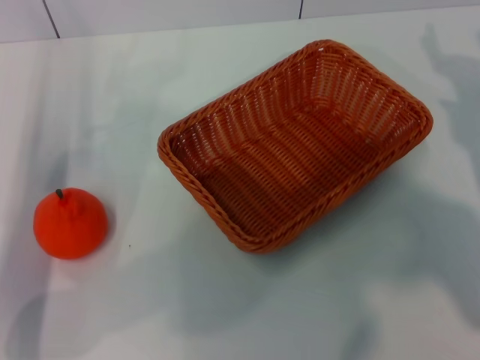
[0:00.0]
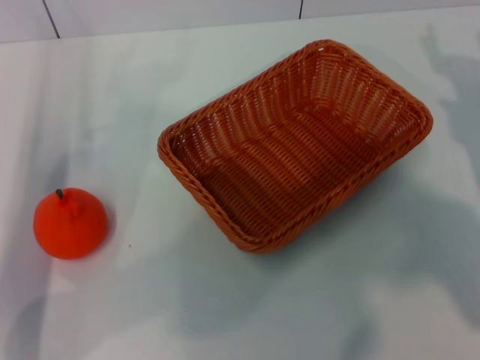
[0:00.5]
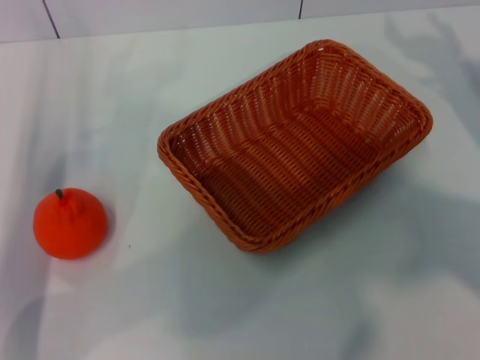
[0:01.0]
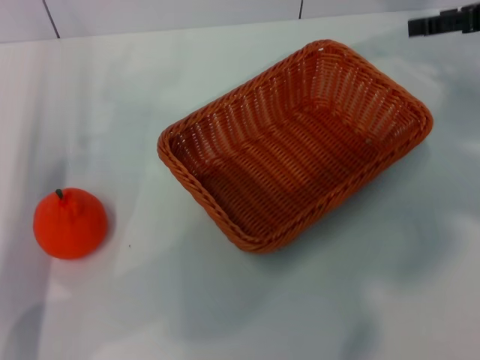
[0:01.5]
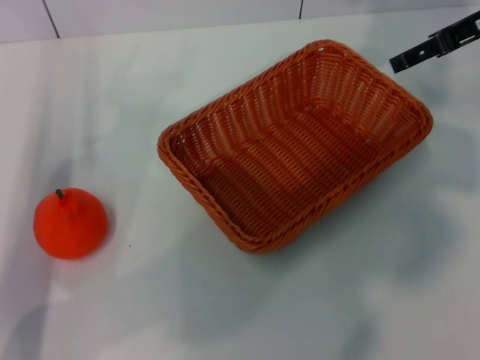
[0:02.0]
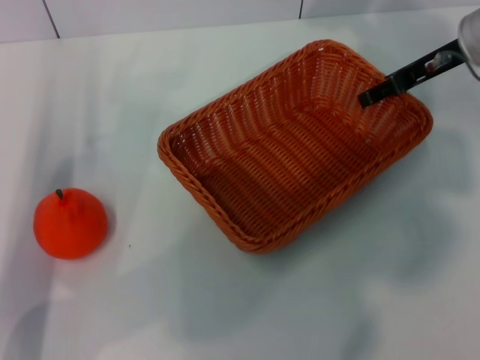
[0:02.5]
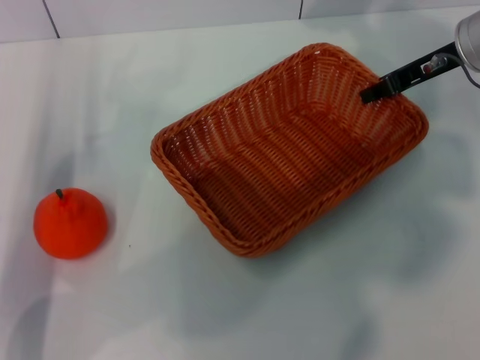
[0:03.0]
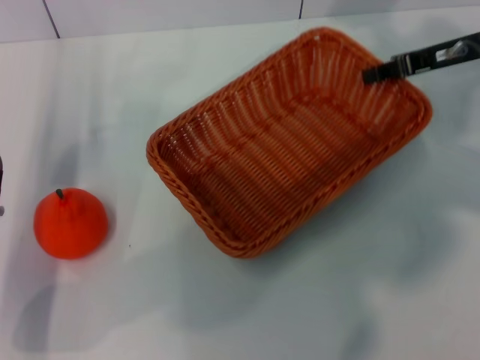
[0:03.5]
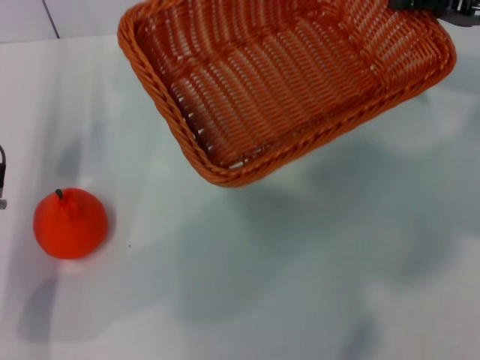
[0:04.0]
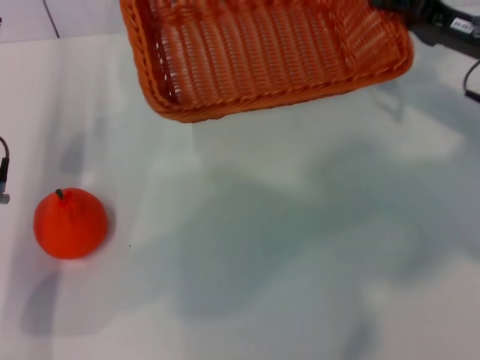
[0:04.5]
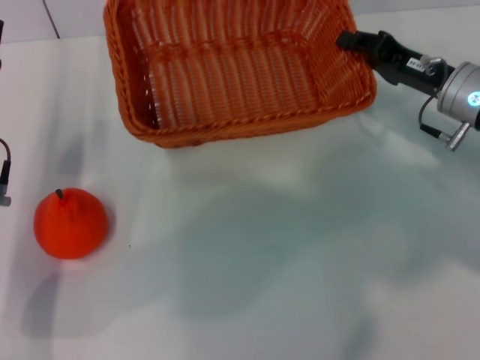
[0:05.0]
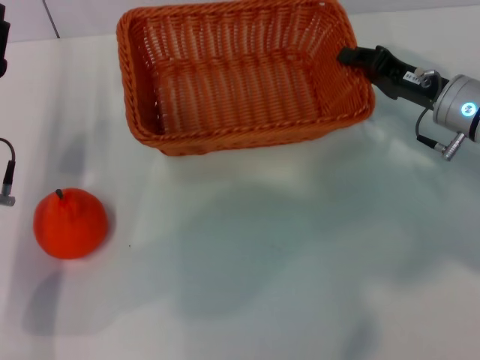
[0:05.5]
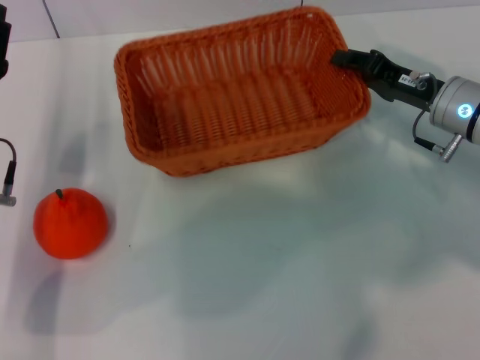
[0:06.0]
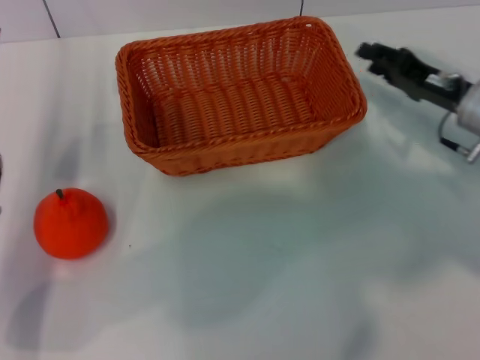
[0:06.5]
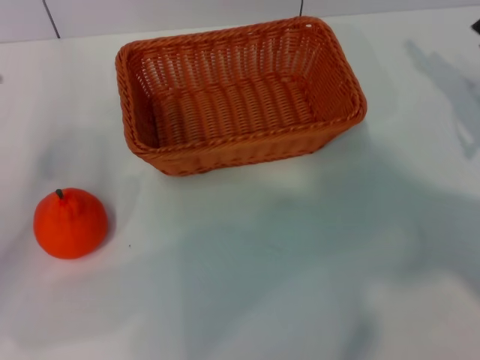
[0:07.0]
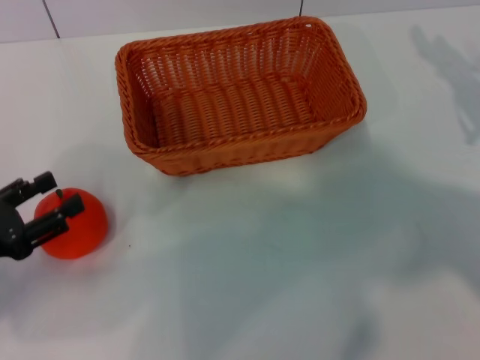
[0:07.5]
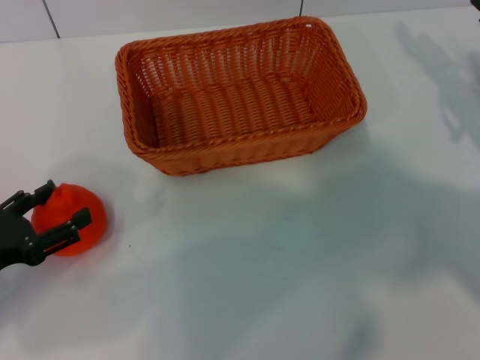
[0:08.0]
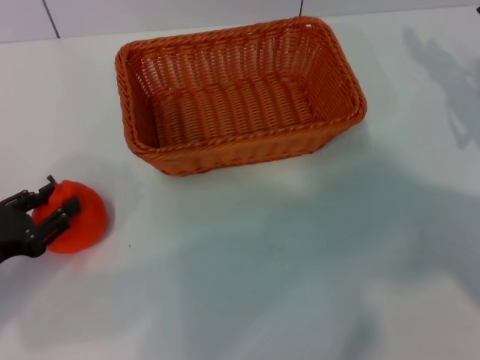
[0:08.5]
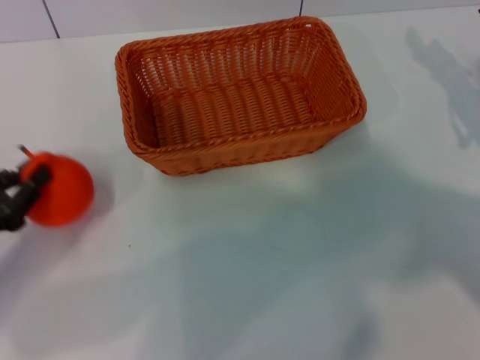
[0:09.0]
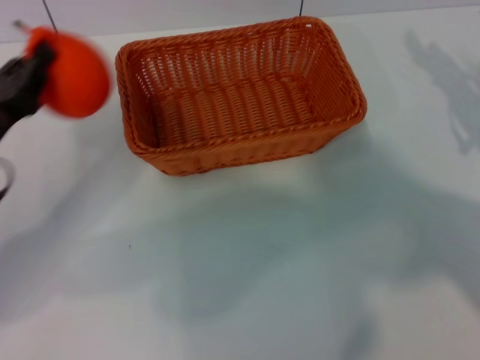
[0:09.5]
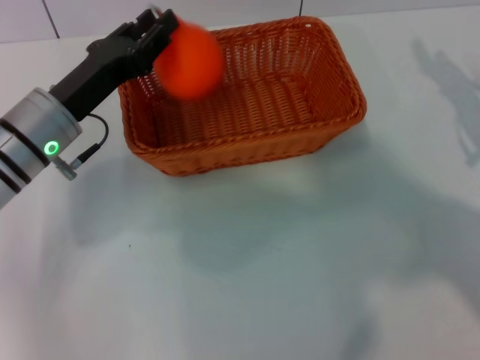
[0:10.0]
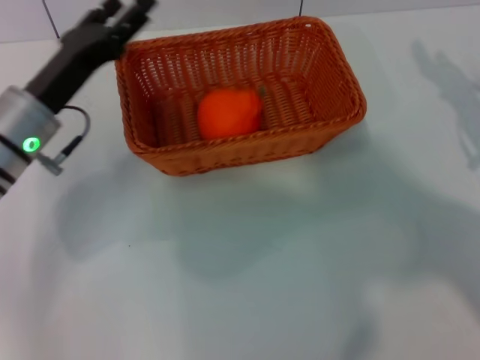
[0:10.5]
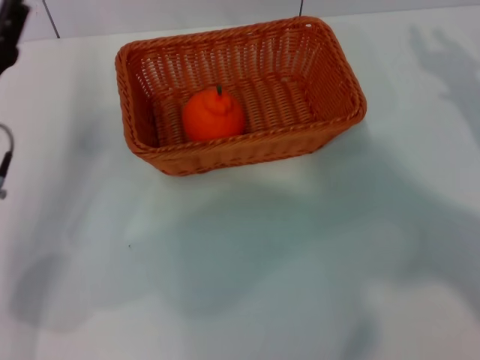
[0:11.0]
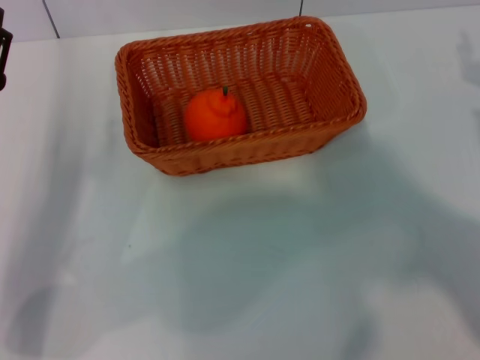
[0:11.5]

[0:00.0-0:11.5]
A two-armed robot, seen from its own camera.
Task of the whole recording: the right gripper pick up the yellow basket and place it horizontally in the middle of the table, the left gripper pick up the orange and place it into the yellow basket.
Step, 0:00.0 to 0:03.0: Pick up the light basket with the right gripper.
Step, 0:03.5 to 0:06.0: Place the light basket in the center of view with the right gripper.
Step, 0:06.5 to 0:08.5: Pick up the orange with the left gripper.
Step, 0:09.0 to 0:10.0: Place the orange into the light basket with the left gripper.
0:00.0 to 0:02.0: The right gripper goes about 20 cm upward and forward.
0:02.0 to 0:04.0: The right gripper shifts by approximately 5 cm, and closes up.
0:04.0 to 0:06.0: The right gripper travels downward and to the left by about 15 cm.
0:06.0 to 0:07.5: The left gripper shifts about 10 cm to the left and backward. Meanwhile the right gripper shifts some 10 cm to the right, and opens.
0:07.5 to 0:09.5: The left gripper heads forward, covering about 5 cm, and closes its fingers.
0:09.5 to 0:11.5: The left gripper moves about 10 cm to the right and comes back, and opens up. Meanwhile the right gripper is displaced backward by approximately 5 cm.

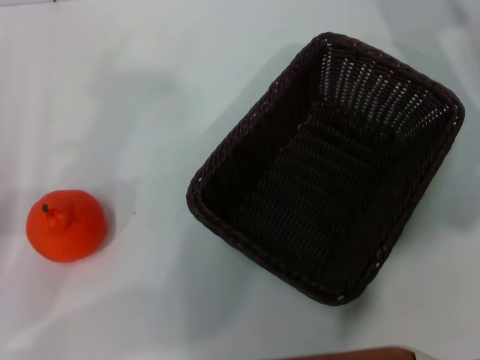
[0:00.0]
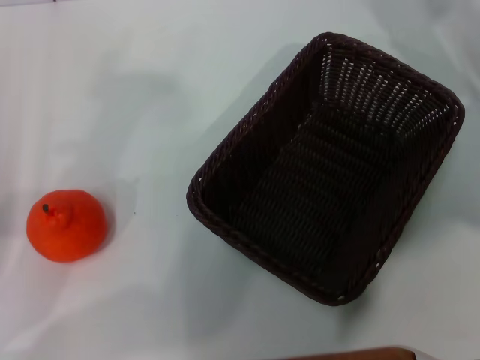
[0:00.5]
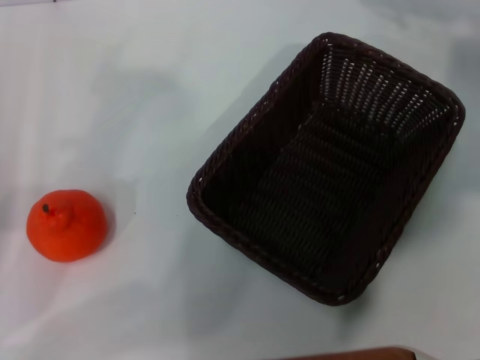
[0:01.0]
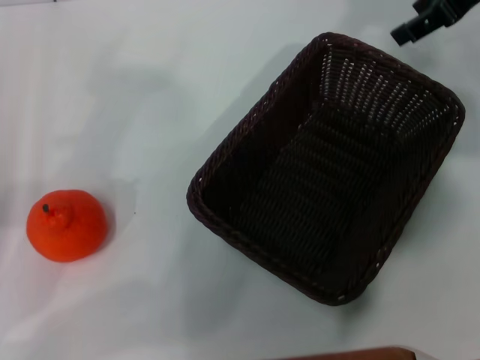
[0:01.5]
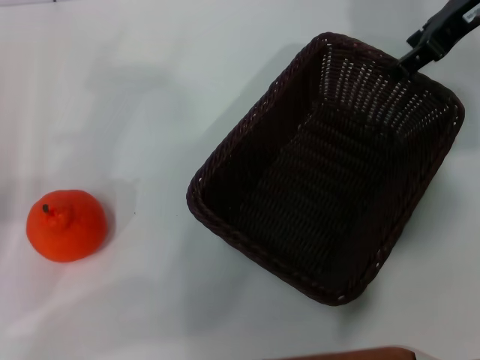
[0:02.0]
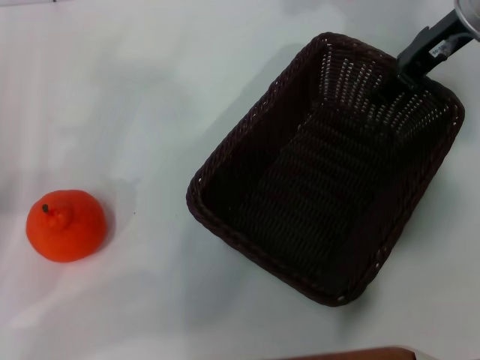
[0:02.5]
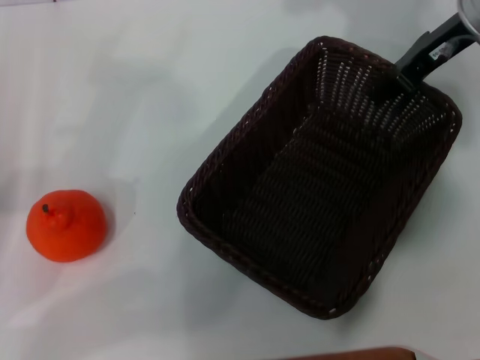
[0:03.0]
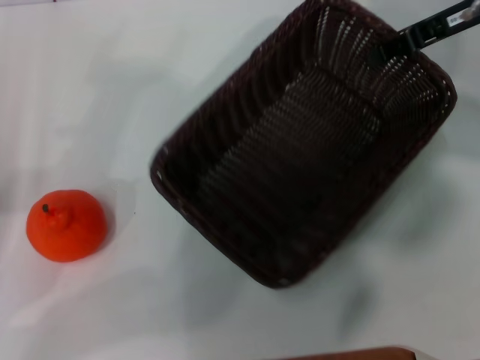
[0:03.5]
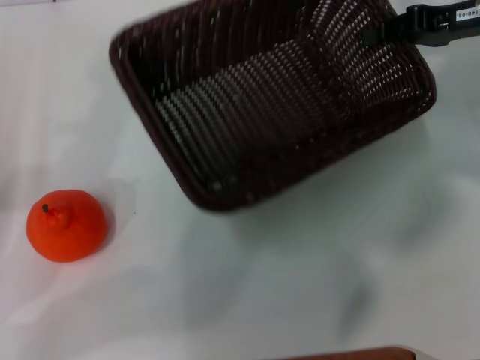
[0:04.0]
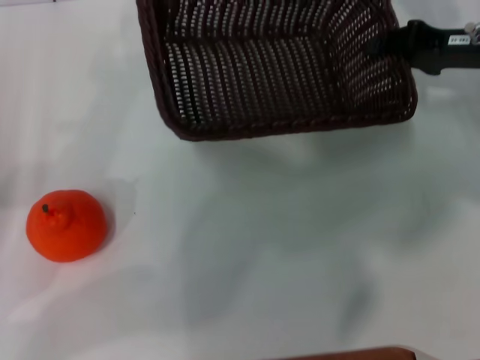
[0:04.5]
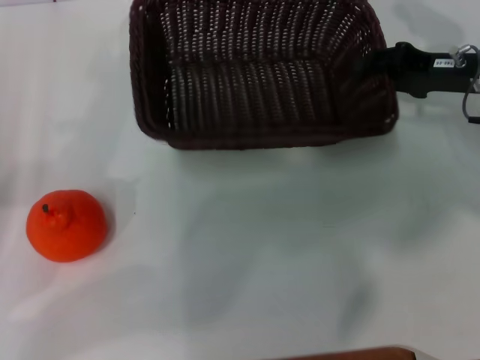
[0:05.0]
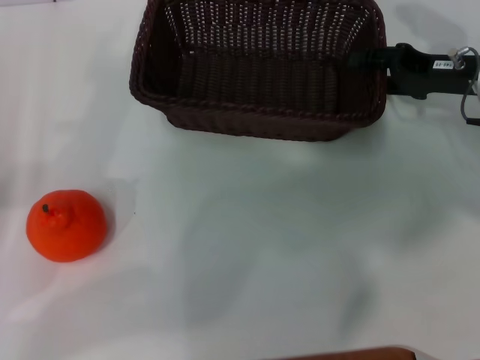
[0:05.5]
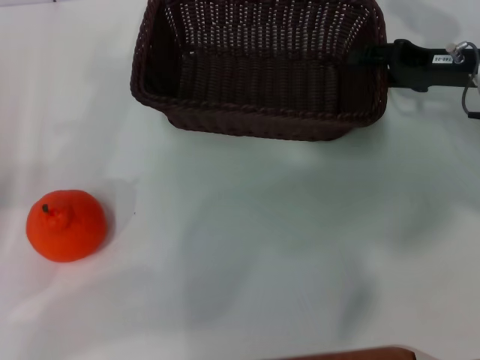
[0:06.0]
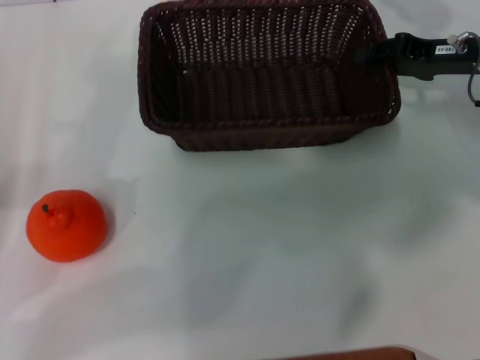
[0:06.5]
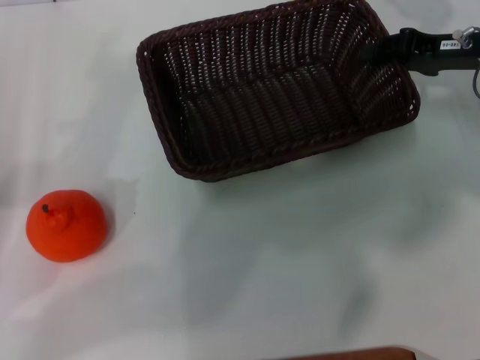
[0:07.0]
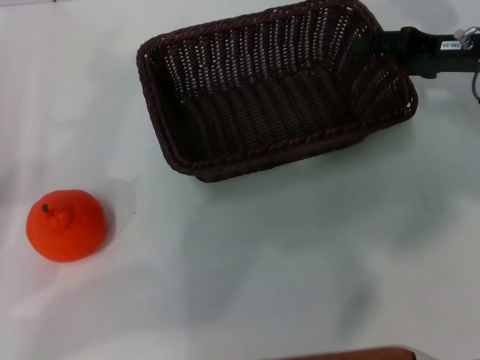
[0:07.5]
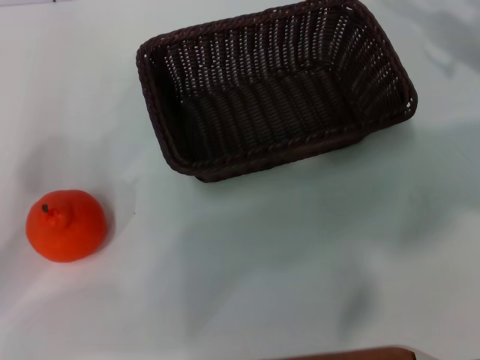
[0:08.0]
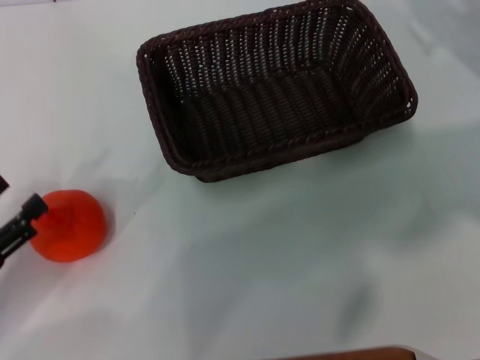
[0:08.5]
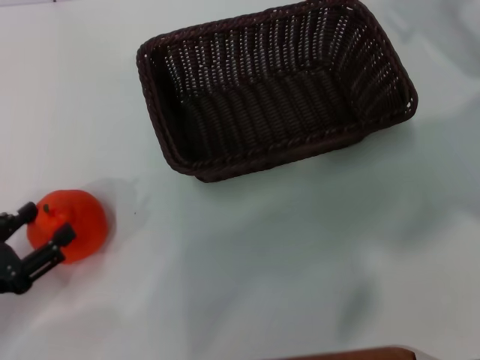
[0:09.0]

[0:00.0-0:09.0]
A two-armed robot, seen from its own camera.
Task of the whole recording: the right gripper pick up the black basket and place it horizontally in the middle of the table, the left gripper pick up the orange and place it into the black basket.
Step, 0:00.0 to 0:03.0: Pick up the dark basket with the right gripper.
Step, 0:03.5 to 0:07.5: Place the dark basket in the center of view with the right gripper.
0:00.0 to 0:02.0: The right gripper is displaced upward by some 10 cm.
0:02.0 to 0:04.5: The right gripper travels downward by about 10 cm, and closes its fingers.
0:04.5 to 0:07.0: The right gripper opens, then closes again.
0:07.0 to 0:09.0: The right gripper moves roughly 5 cm, and opens its fingers; the left gripper moves downward and backward, some 10 cm.

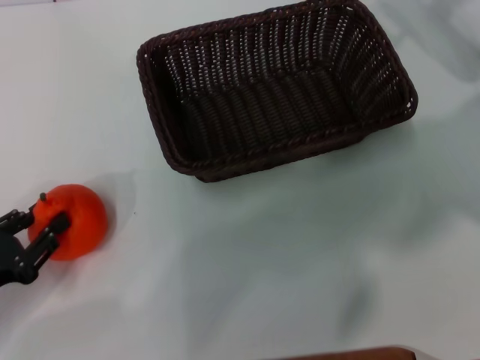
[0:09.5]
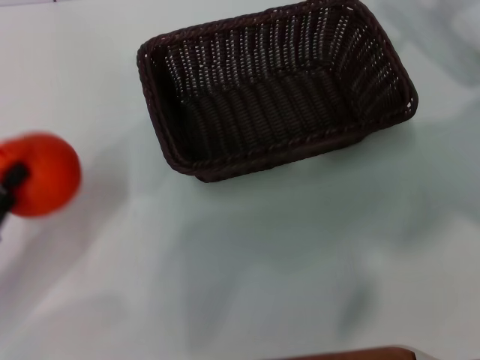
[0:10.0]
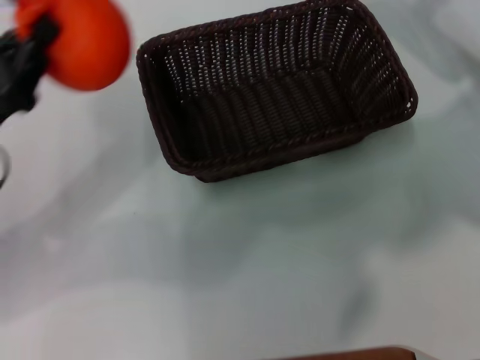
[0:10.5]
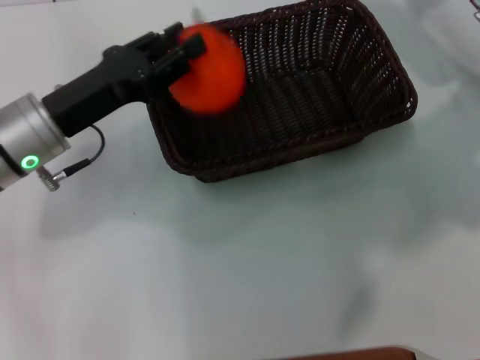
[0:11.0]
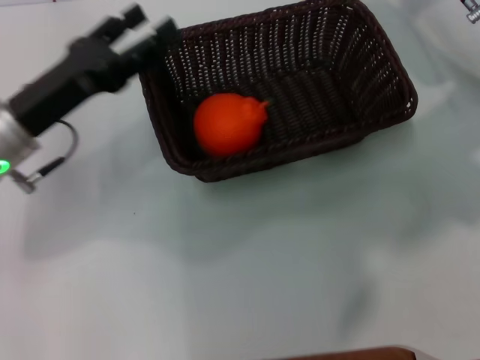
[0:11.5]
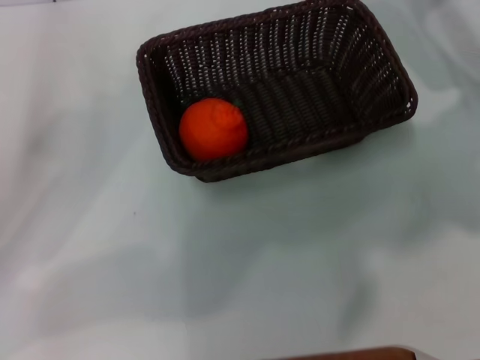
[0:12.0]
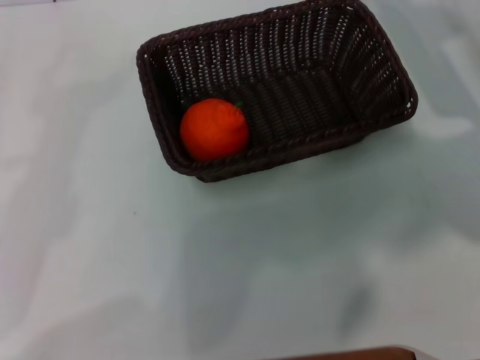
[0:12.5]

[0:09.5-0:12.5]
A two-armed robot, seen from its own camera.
Task of the whole recording: the right gripper pick up the black basket and place it horizontally in the middle of the table, the left gripper pick up the orange and place it into the black basket.
Step, 0:10.0 to 0:11.0: Place the orange into the dark basket with the left gripper.
0:09.5 to 0:11.0: The left gripper goes some 20 cm forward, to the right and upward.
0:11.0 to 0:12.5: The left gripper goes about 20 cm to the left and backward, and opens its fingers.
